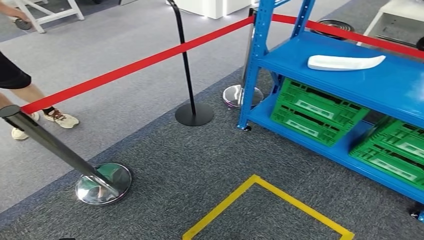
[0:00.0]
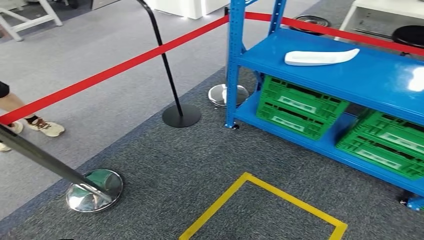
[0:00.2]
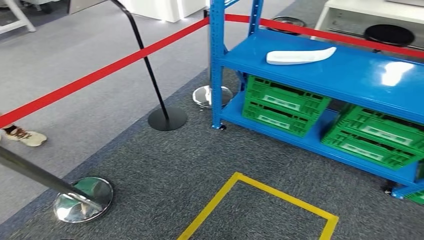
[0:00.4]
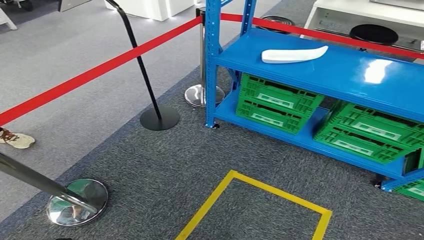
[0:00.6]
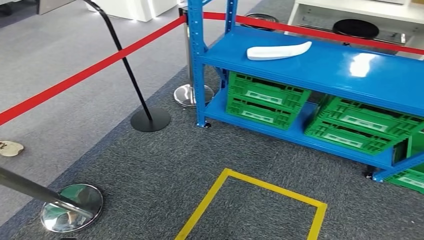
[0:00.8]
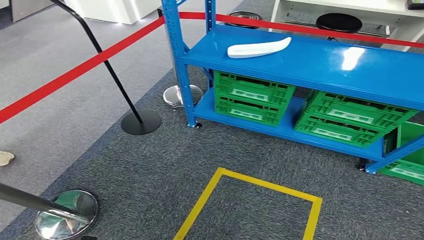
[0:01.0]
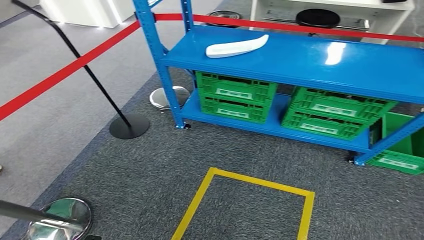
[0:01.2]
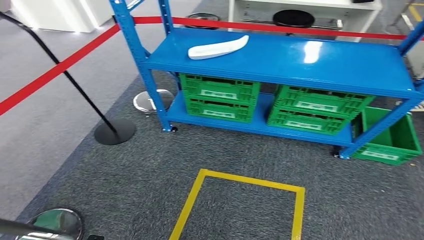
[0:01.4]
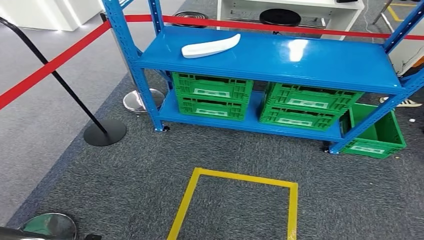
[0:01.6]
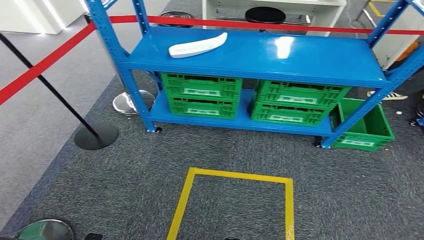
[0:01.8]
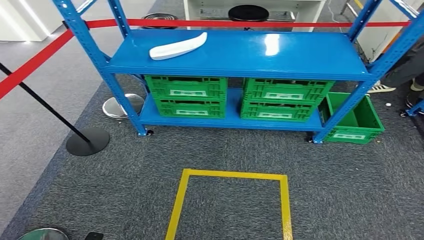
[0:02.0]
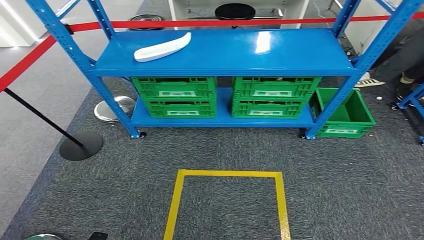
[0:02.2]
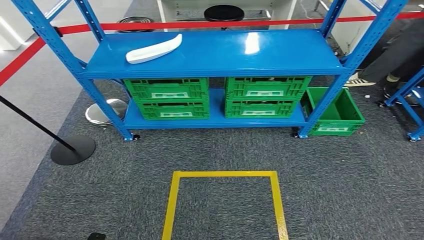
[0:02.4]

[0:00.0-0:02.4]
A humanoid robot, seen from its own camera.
Step, 0:00.0 to 0:02.4: Move to the initial position of the workbench.
